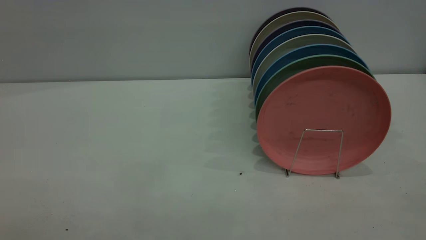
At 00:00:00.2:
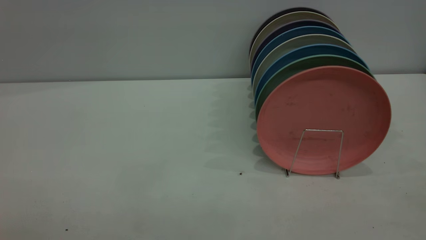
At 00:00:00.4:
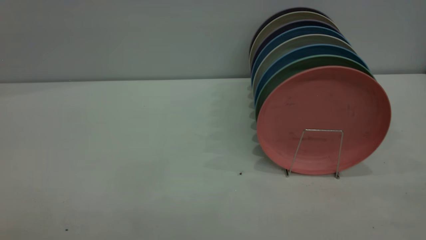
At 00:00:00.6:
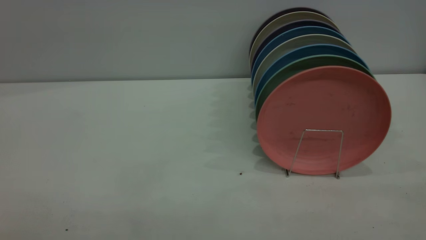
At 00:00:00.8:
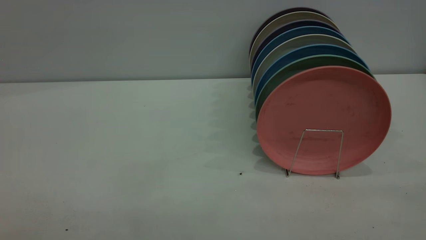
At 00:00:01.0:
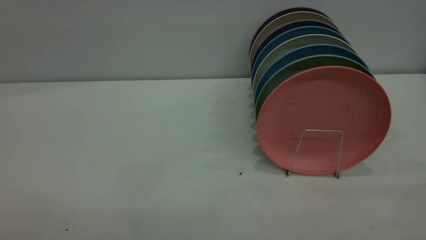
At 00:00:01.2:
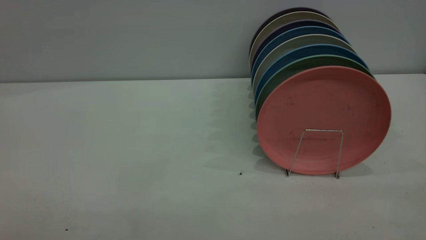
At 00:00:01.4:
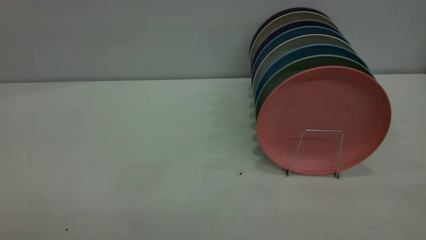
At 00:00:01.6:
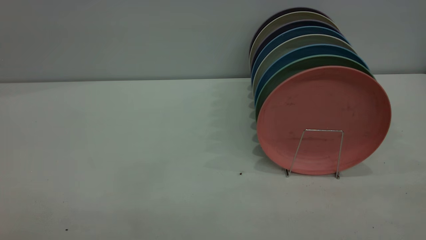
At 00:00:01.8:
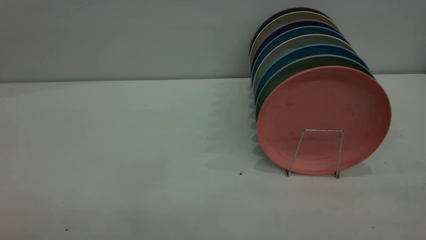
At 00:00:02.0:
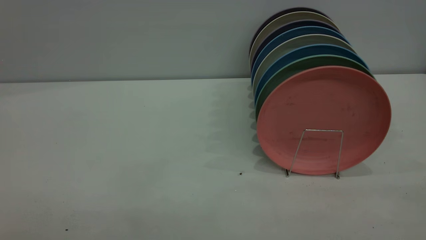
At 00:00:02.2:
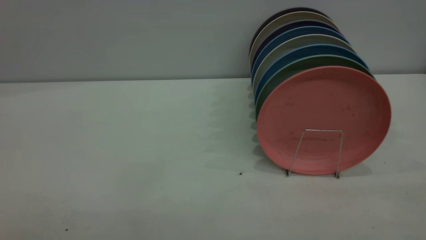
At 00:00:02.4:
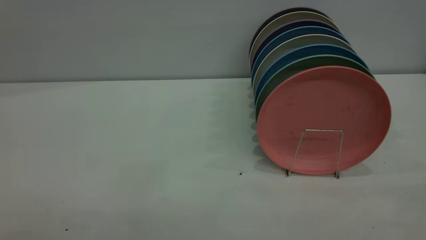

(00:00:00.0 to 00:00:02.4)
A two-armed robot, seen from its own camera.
Task of the whole recording: put the plate on the plate rack.
00:00:01.2 - 00:00:02.4: Both grippers stay about where they are.
